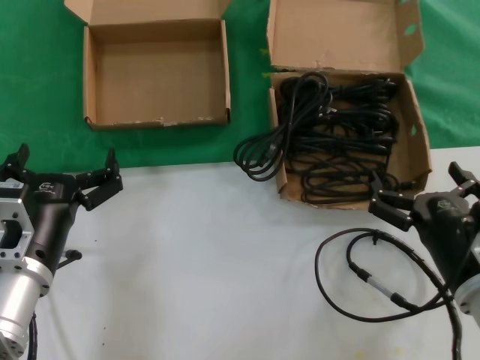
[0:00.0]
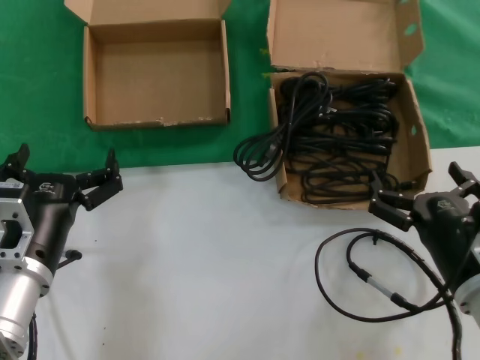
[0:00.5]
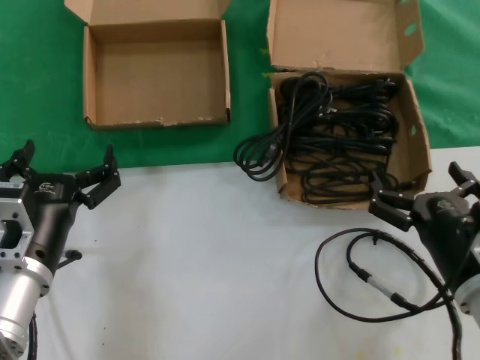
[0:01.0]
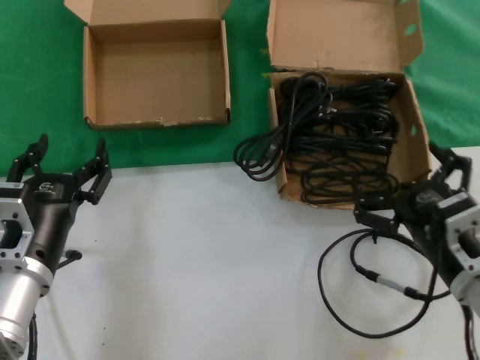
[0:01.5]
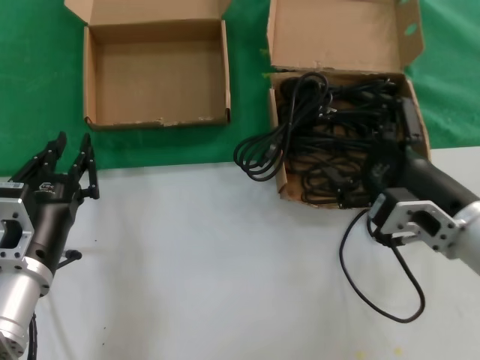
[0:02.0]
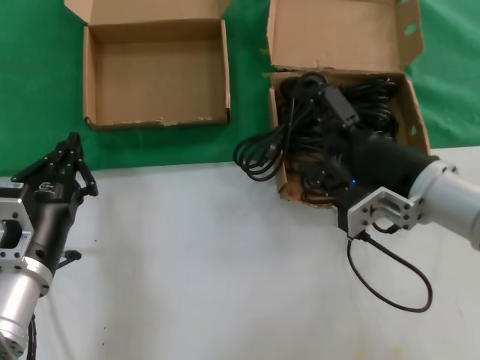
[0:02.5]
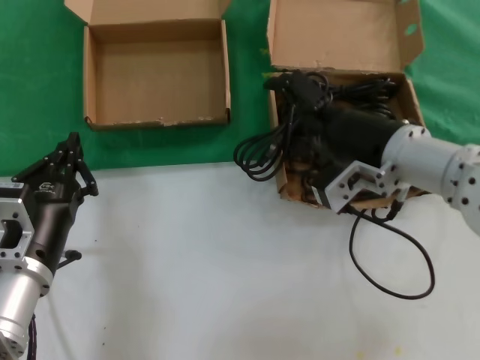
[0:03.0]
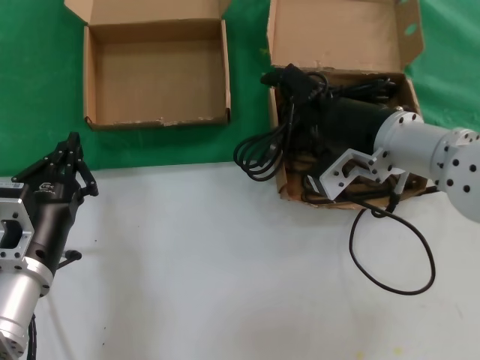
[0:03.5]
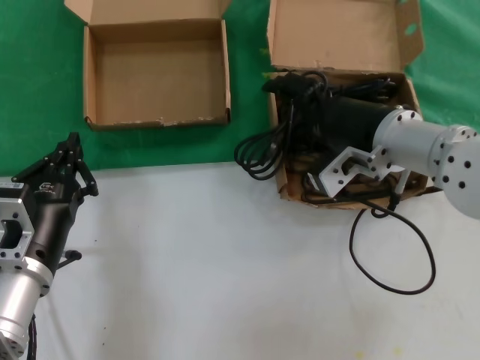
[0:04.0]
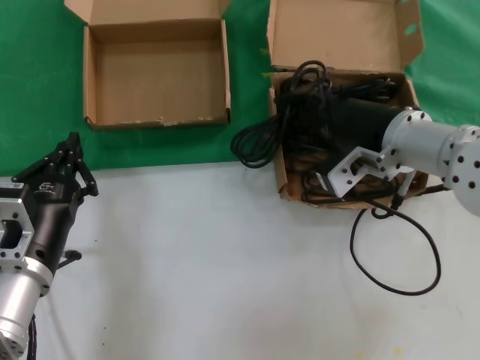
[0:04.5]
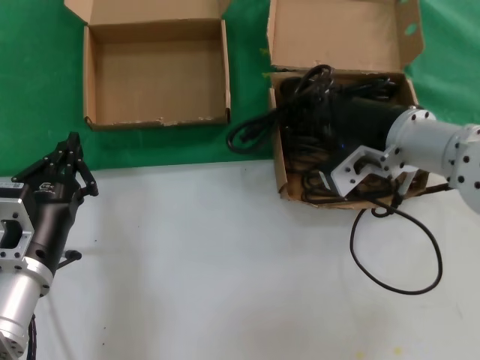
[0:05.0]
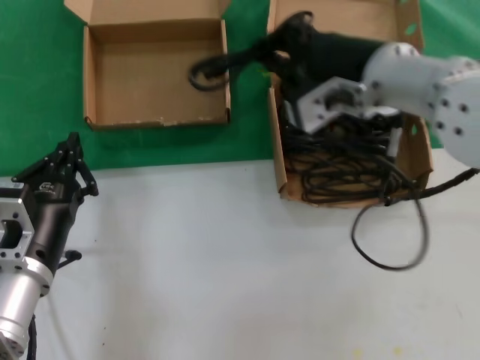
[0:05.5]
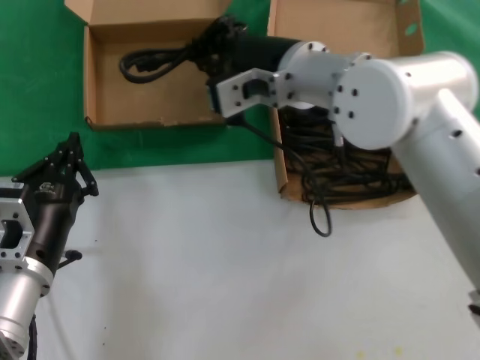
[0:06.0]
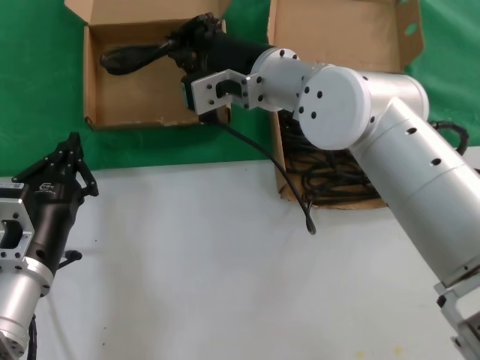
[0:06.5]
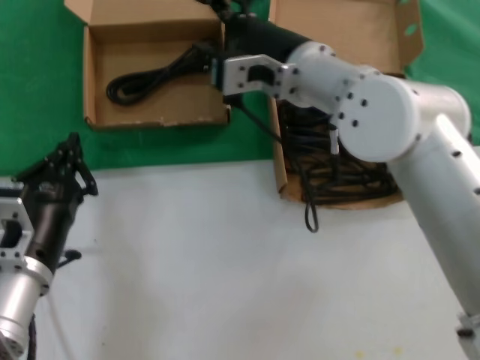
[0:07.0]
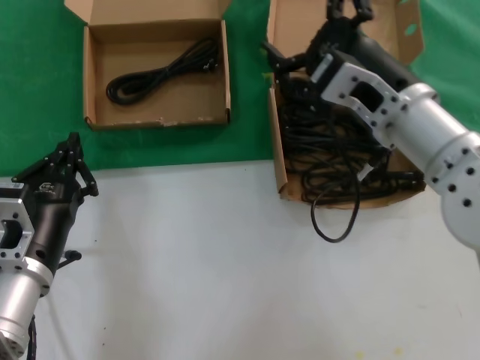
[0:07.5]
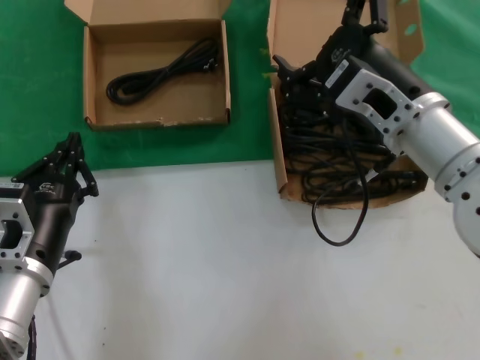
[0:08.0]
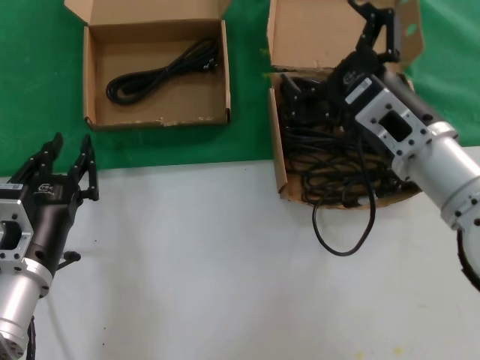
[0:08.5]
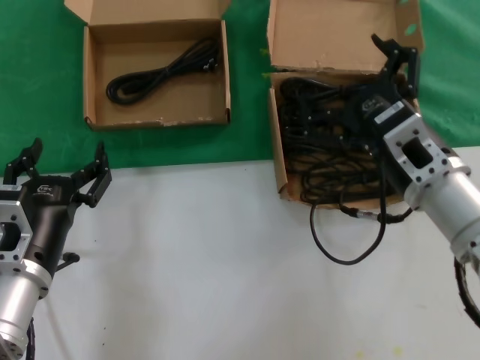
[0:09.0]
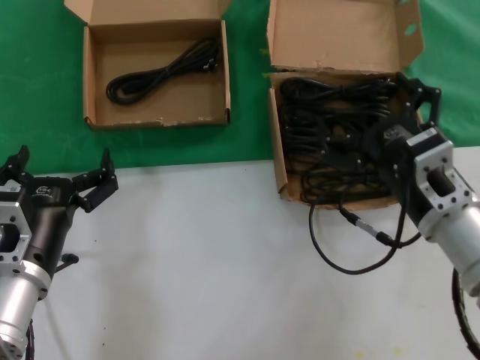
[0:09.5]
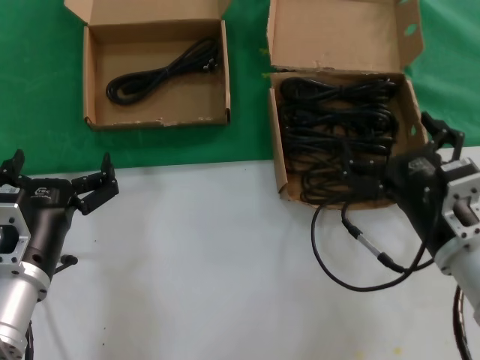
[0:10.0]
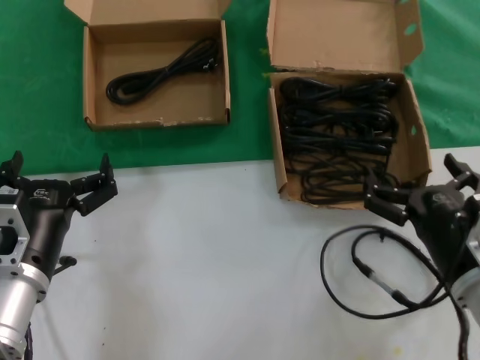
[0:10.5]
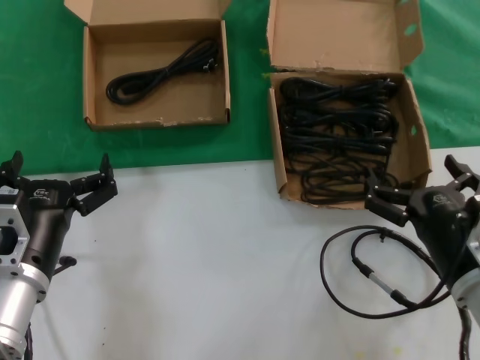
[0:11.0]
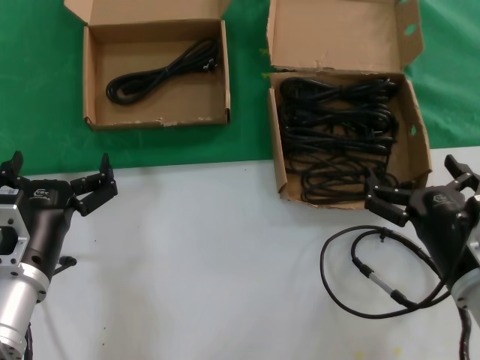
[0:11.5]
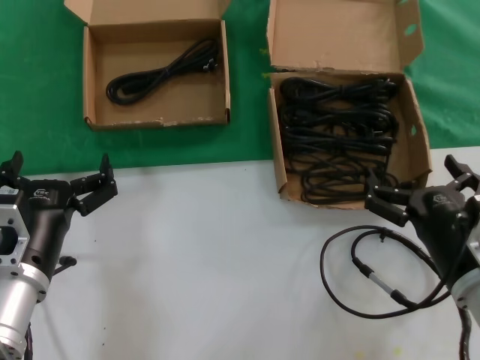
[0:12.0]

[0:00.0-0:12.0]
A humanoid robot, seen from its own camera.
Task of the whole recording: take the parts from the box containing them and put them into an empty box.
Step, 0:00.0 to 0:04.5: Grasp the data cable.
Step, 0:05.0 to 0:06.5: Place the data cable in the another box.
0:00.0 to 0:02.0: The right hand moves upward, about 5 cm.
0:02.0 to 0:04.0: The right hand is displaced forward, upward and to the left by approximately 15 cm.
0:04.0 to 0:06.0: The right hand moves to the left and upward, approximately 15 cm.
0:06.0 to 0:08.0: The right hand travels to the right, backward and downward by approximately 15 cm.
0:08.0 to 0:10.0: The right hand moves downward, backward and to the right, some 15 cm.
0:10.0 to 0:12.0: There are only small adjustments of the hands.

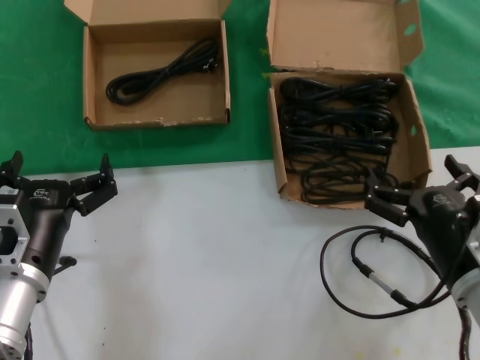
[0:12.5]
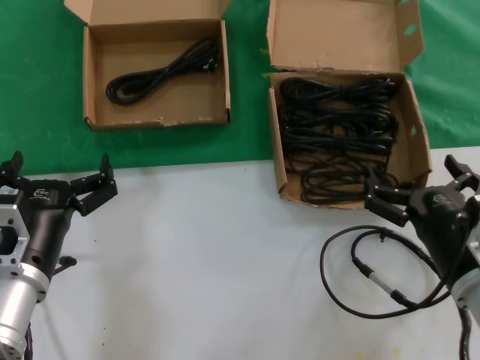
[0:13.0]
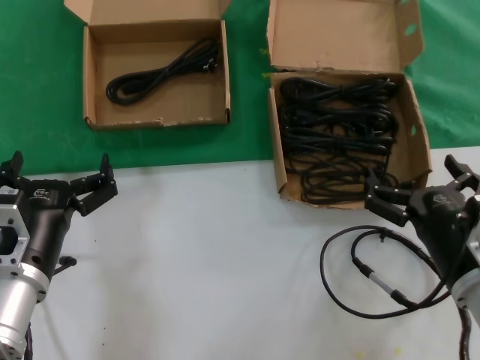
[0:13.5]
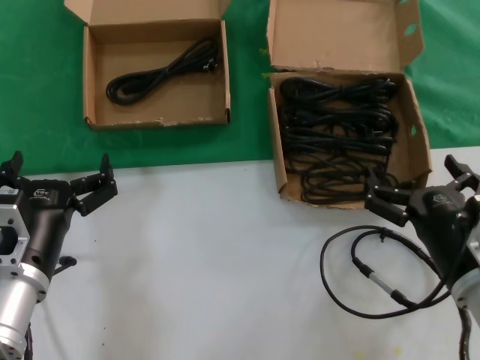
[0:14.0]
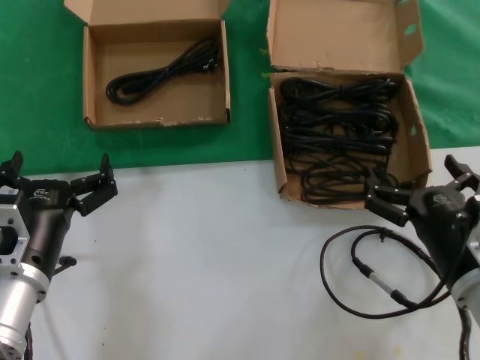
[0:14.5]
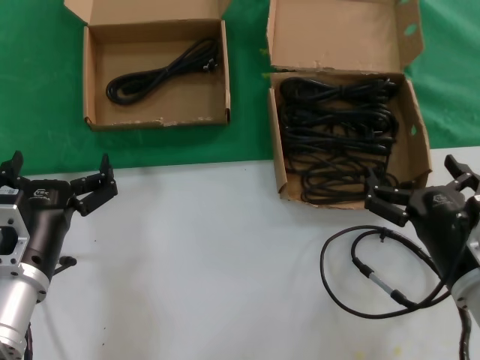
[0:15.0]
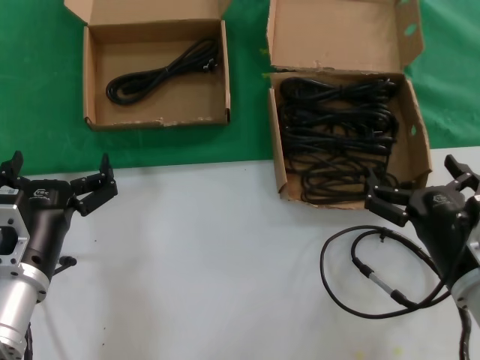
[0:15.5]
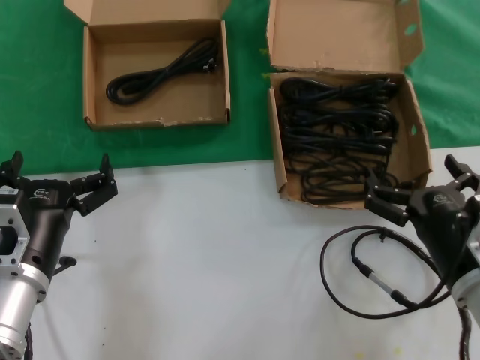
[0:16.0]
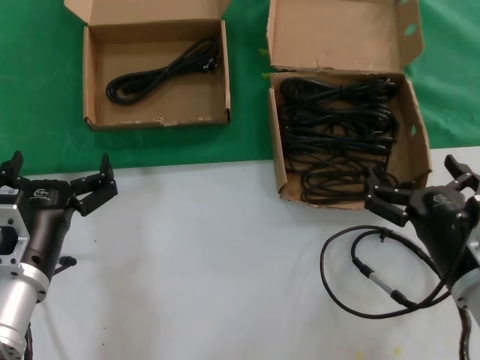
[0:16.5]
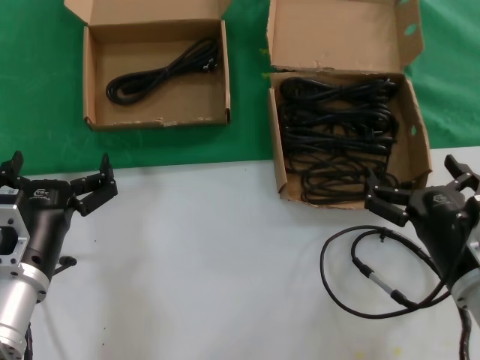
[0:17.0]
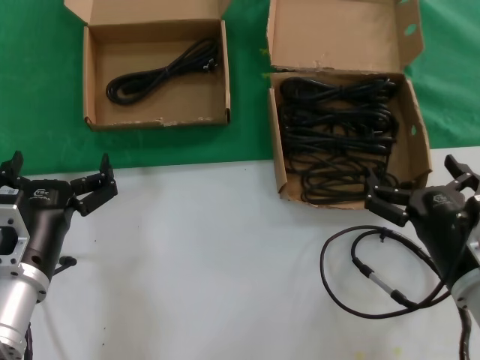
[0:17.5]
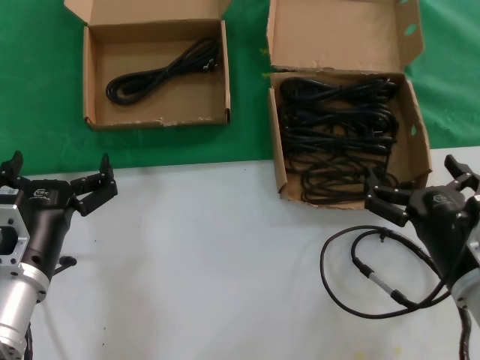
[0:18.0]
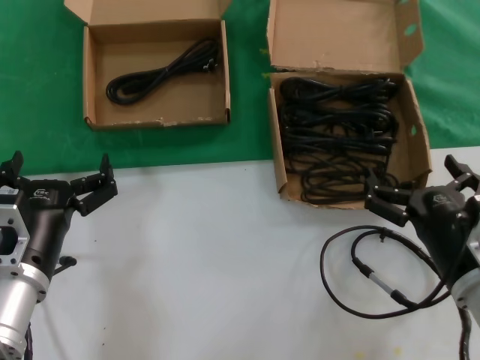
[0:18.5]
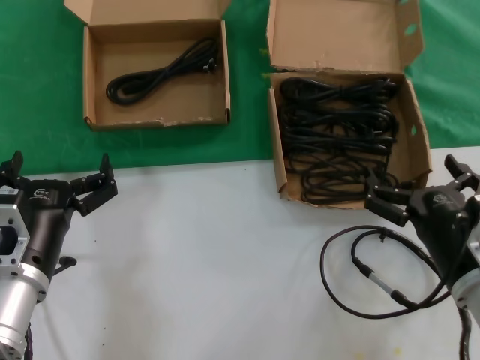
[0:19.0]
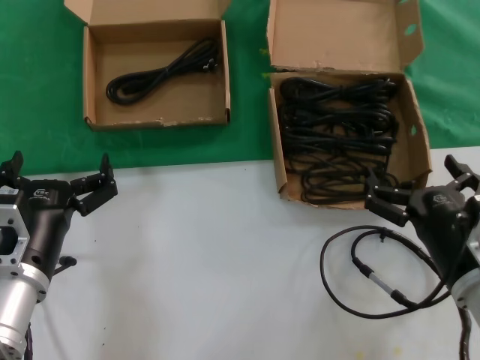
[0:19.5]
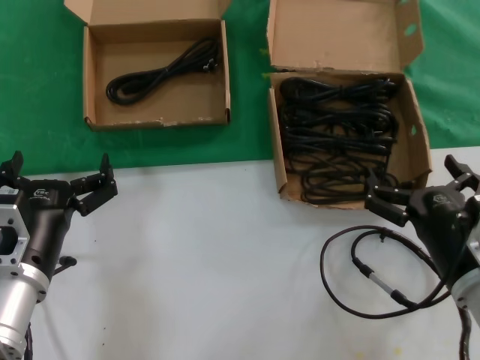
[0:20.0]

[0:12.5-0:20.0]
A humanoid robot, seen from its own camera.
Task of the whole recording: take the parts from the box containing them and put them into an empty box.
0:12.5 to 0:20.0: Neither hand changes place.

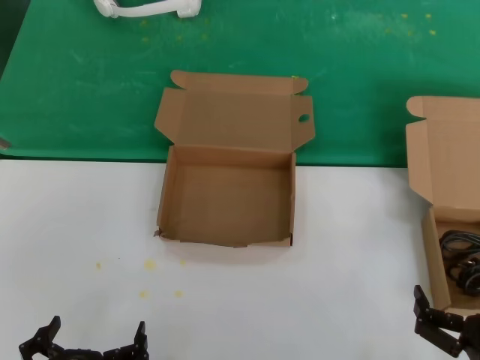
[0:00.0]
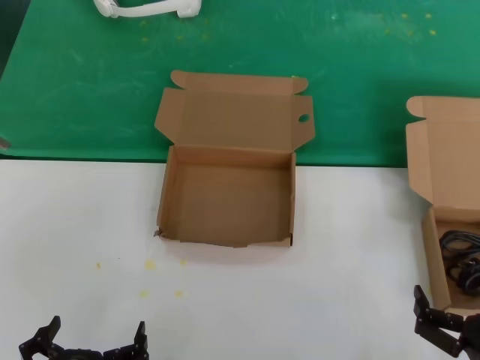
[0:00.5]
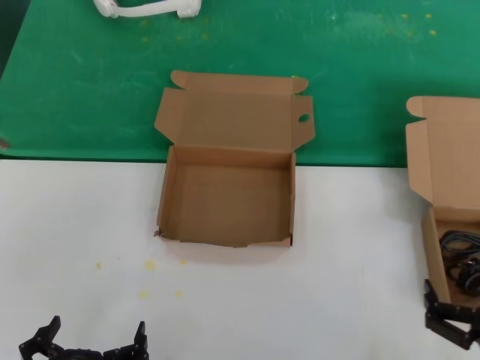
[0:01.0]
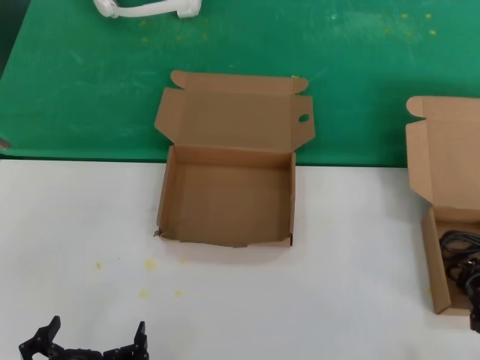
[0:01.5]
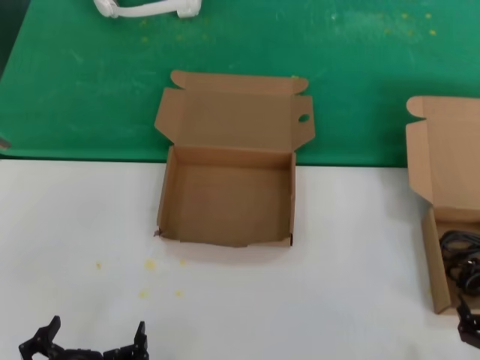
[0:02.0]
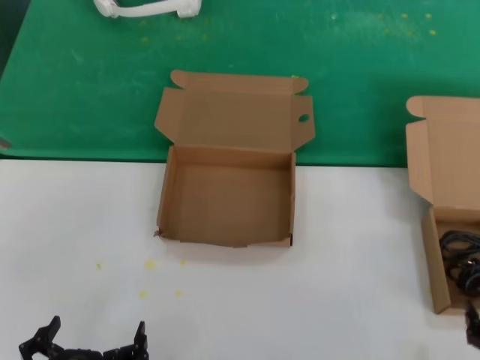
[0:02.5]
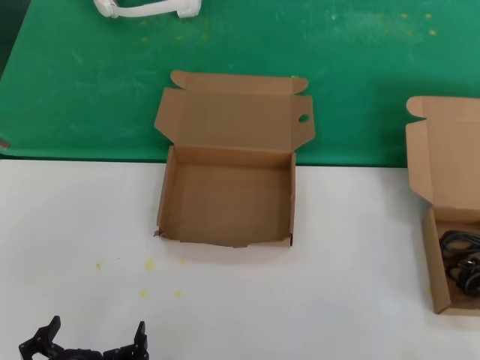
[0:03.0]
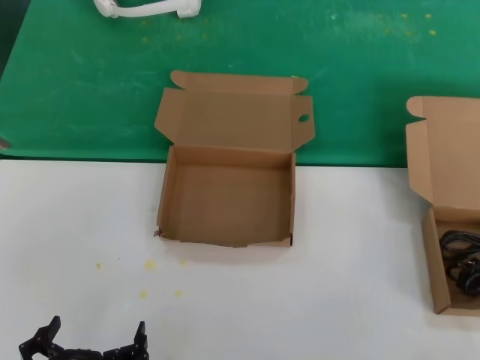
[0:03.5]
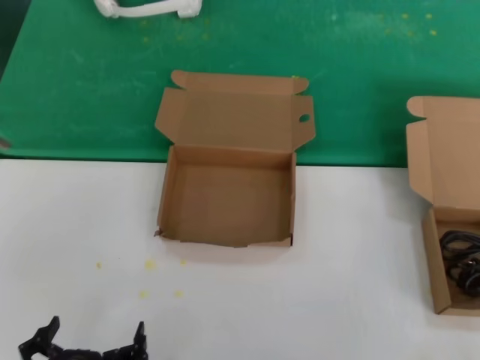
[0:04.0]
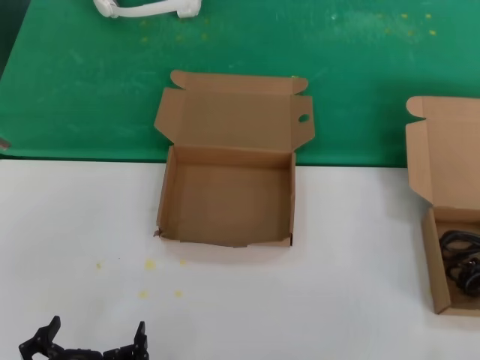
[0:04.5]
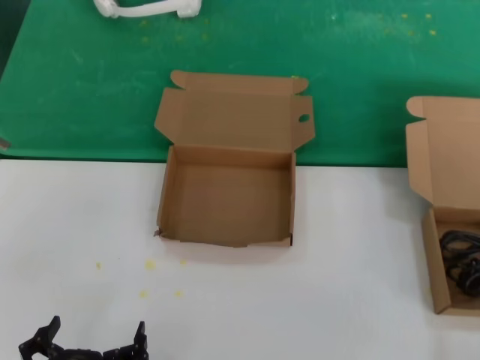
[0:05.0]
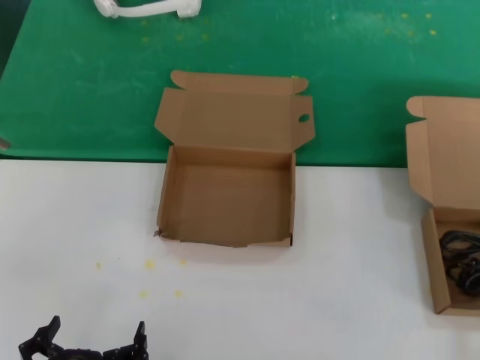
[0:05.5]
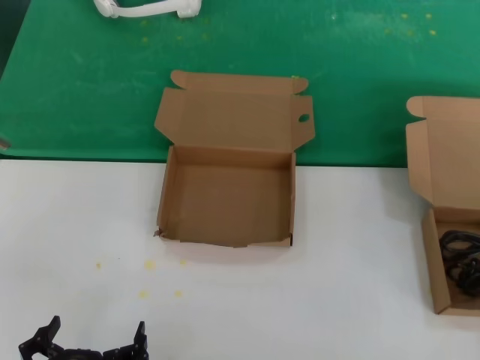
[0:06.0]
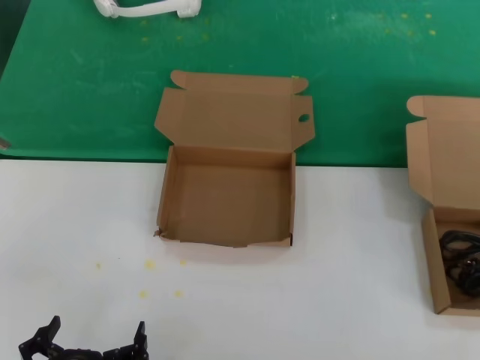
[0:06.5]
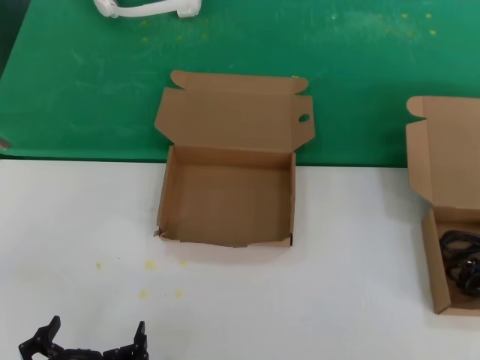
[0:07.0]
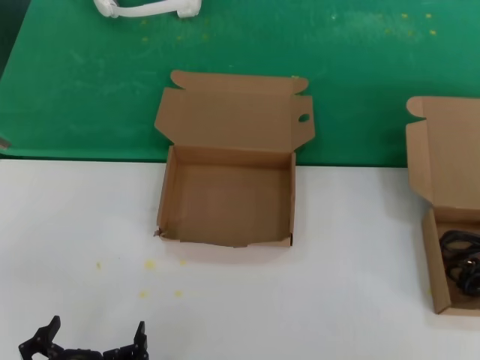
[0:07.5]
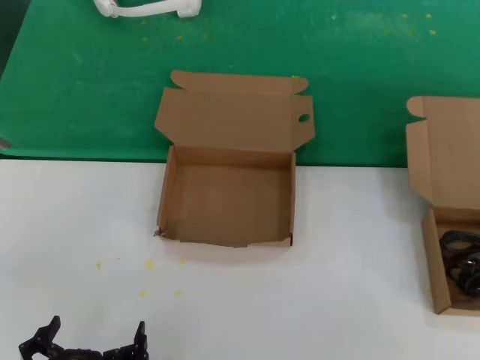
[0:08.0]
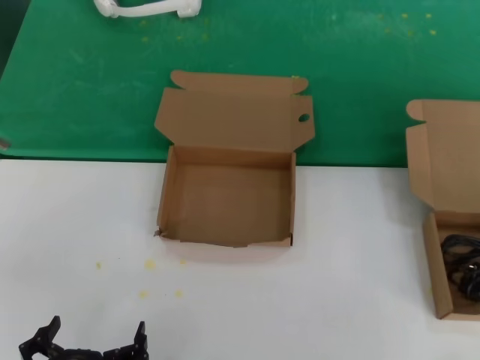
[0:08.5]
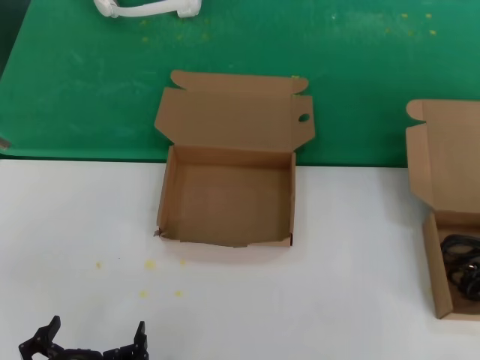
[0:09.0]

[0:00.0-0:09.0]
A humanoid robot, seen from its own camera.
Task of the whole recording: take the parts from the box containing them and put them into an empty box.
0:00.0 to 0:02.0: The right hand moves roughly 5 cm.
0:04.5 to 0:07.0: The right hand moves forward, upward and to the right, roughly 20 cm.
0:07.0 to 0:09.0: The right hand moves forward, roughly 5 cm.
